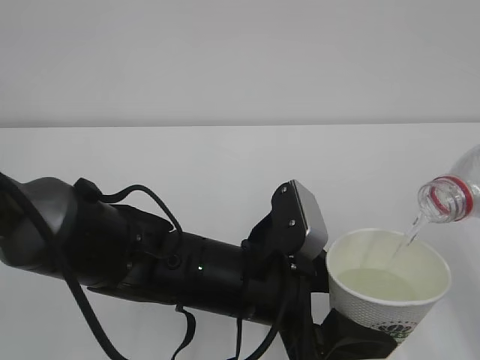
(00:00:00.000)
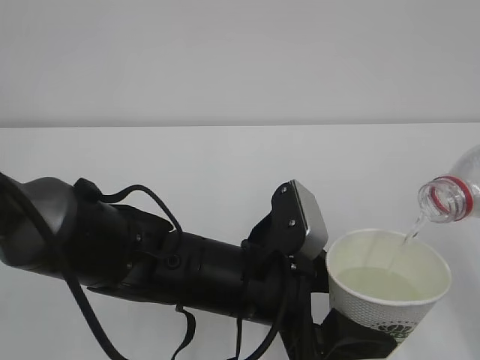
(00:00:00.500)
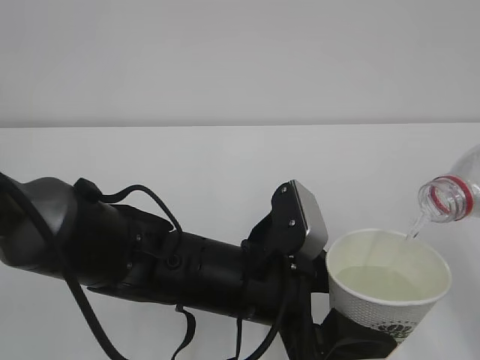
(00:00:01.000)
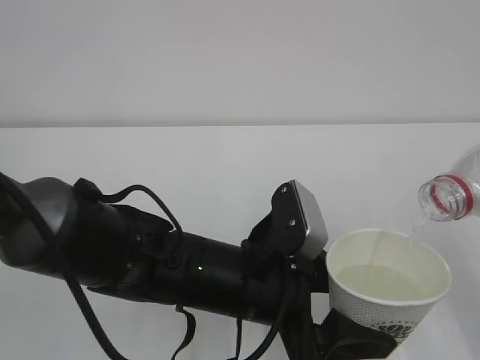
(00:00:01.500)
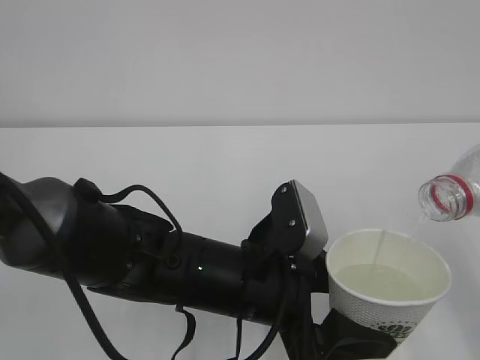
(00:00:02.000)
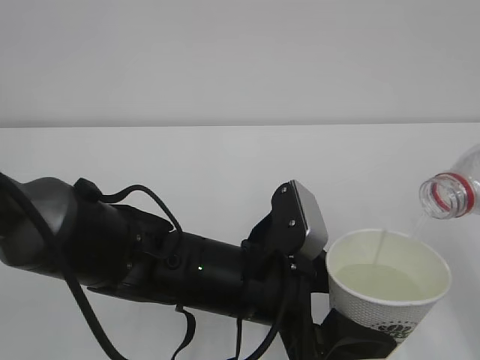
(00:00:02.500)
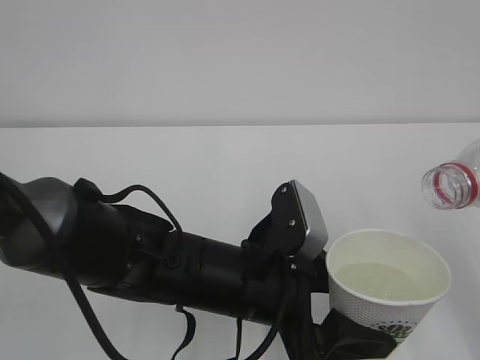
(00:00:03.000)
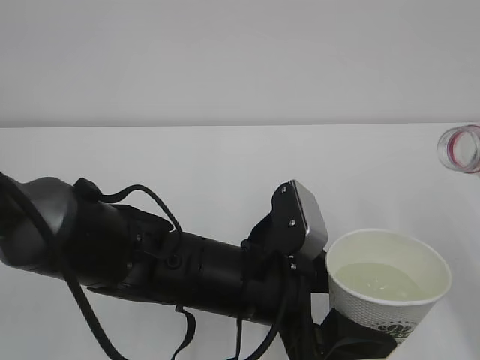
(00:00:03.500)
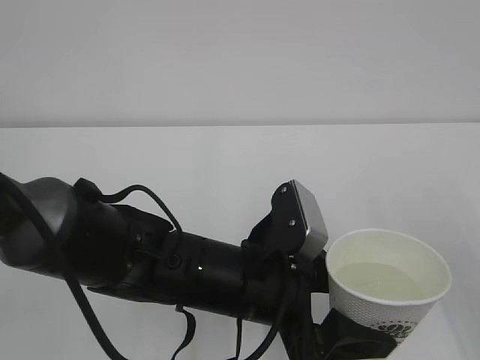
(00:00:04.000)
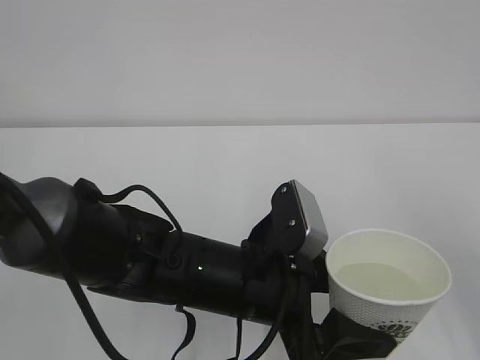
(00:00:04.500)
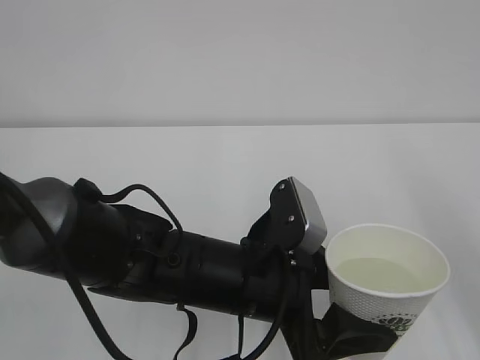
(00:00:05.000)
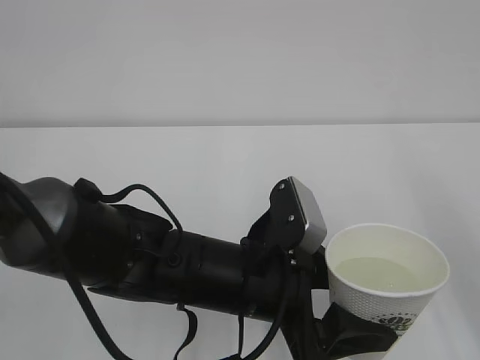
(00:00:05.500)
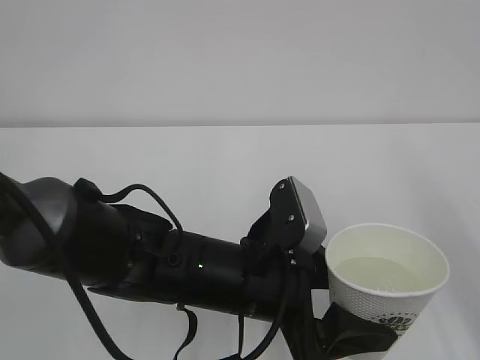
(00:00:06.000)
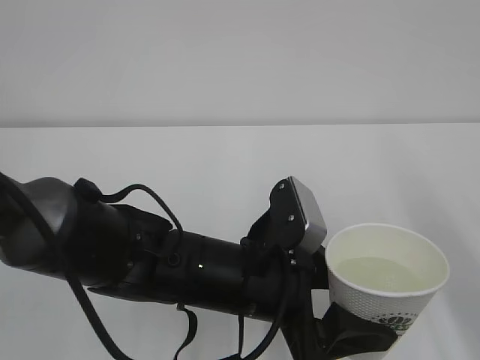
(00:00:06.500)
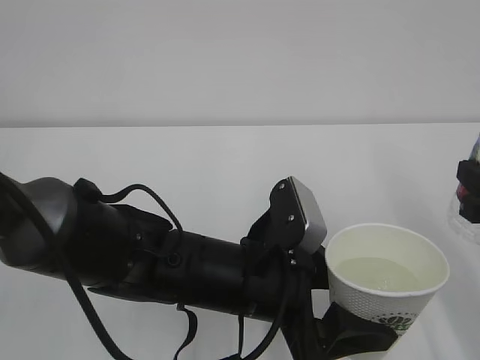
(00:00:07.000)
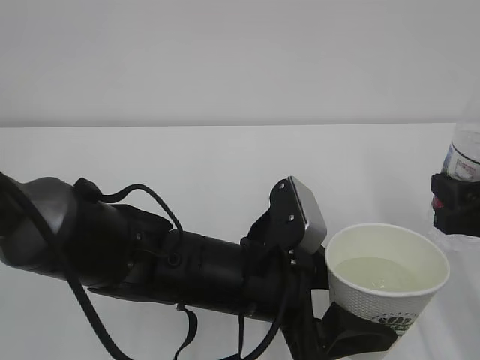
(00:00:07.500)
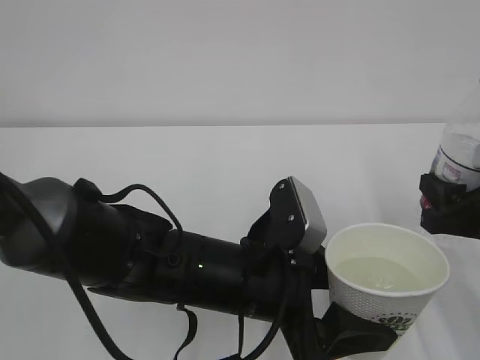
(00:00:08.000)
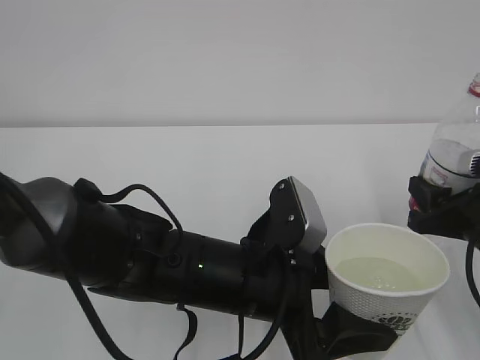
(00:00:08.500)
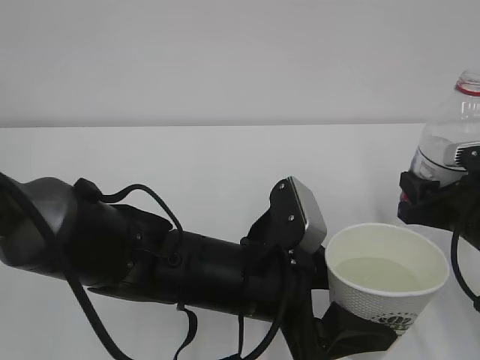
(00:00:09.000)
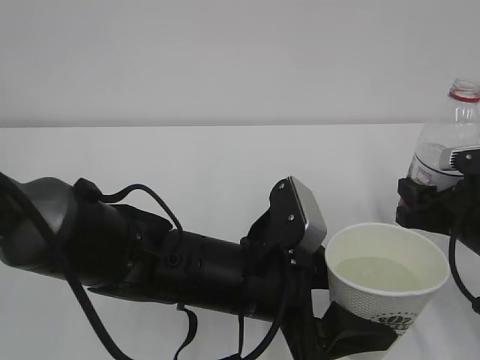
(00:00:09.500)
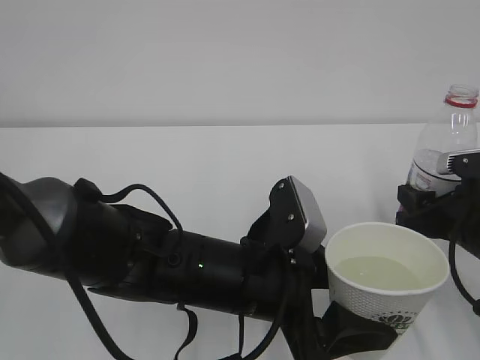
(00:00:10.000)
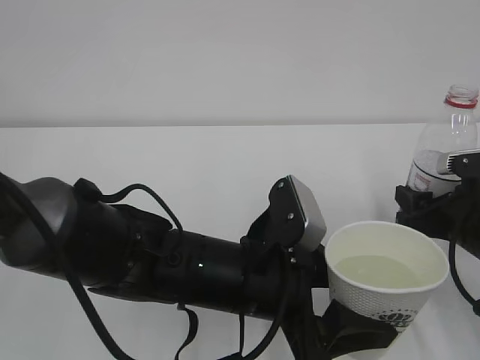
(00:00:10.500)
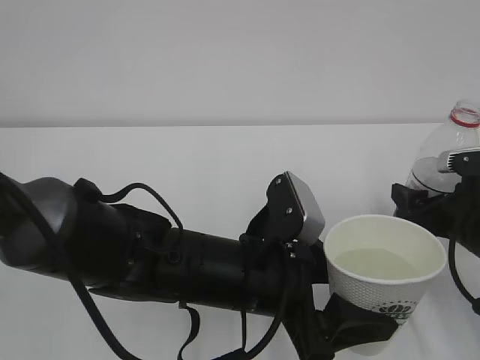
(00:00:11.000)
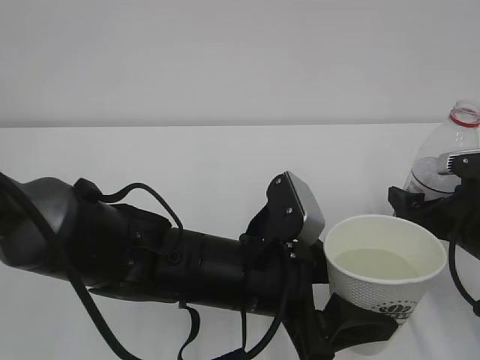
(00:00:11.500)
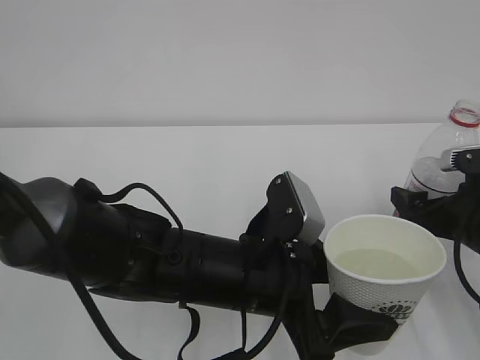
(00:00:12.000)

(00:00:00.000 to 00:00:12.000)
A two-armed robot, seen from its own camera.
00:00:00.000 - 00:00:02.000: The two grippers keep their place.
00:00:06.000 - 00:00:08.000: The right gripper heads downward and forward, covering approximately 10 cm.
00:00:08.000 - 00:00:10.000: The right gripper moves approximately 5 cm.
00:00:10.000 - 00:00:12.000: The right gripper opens up.

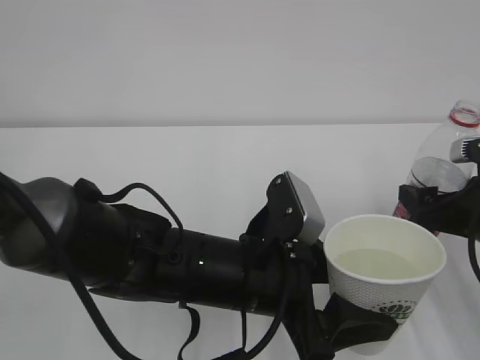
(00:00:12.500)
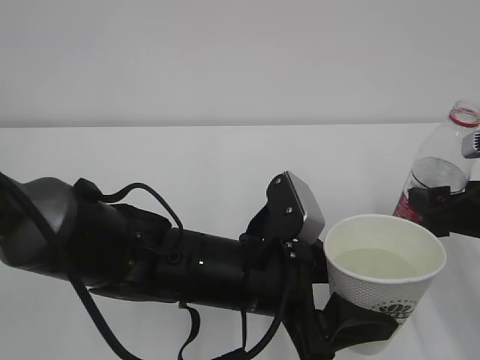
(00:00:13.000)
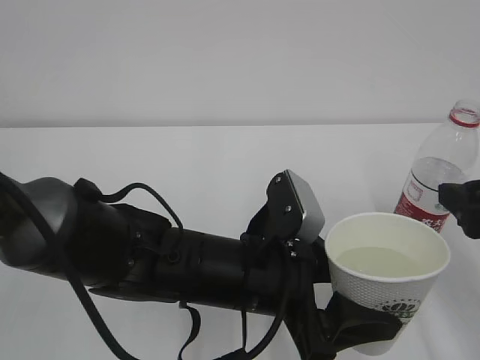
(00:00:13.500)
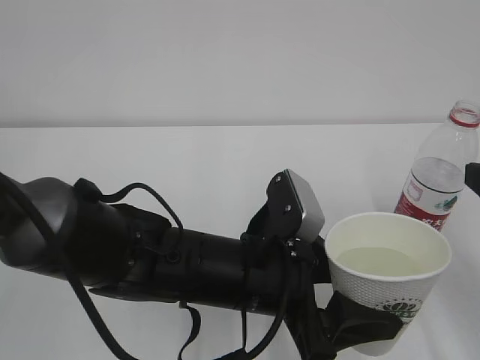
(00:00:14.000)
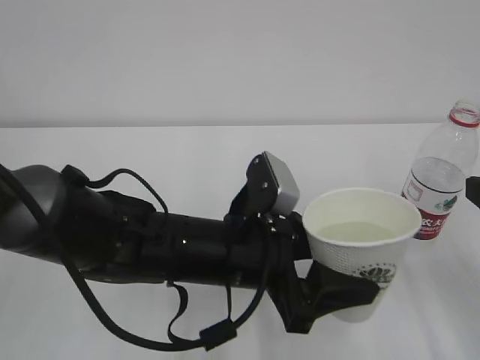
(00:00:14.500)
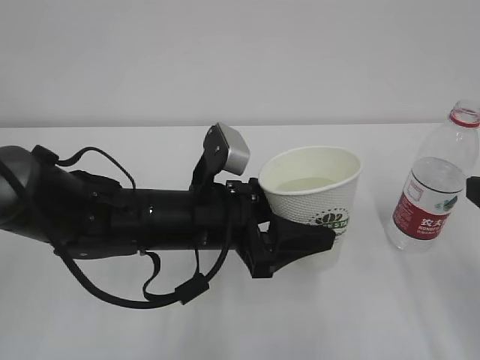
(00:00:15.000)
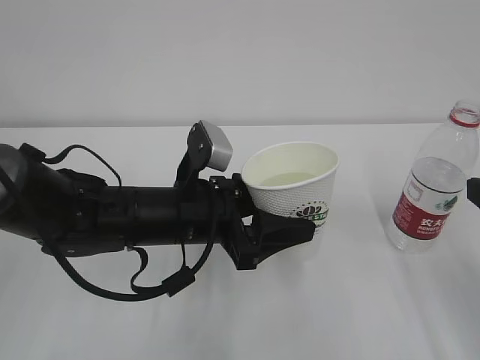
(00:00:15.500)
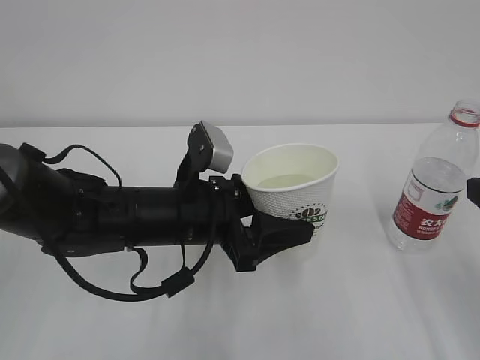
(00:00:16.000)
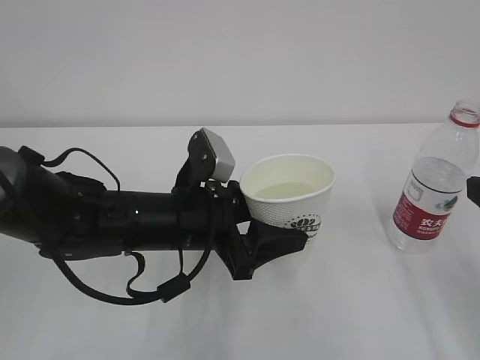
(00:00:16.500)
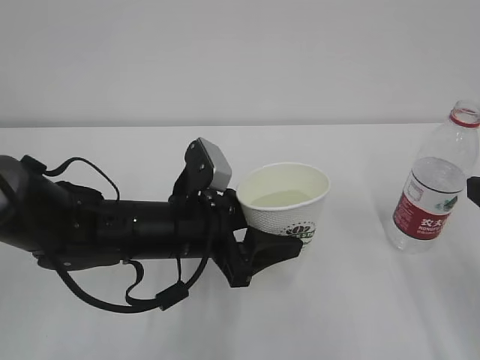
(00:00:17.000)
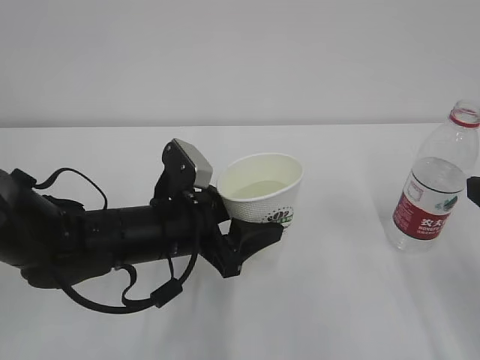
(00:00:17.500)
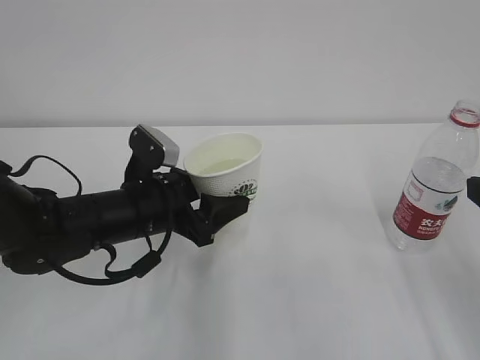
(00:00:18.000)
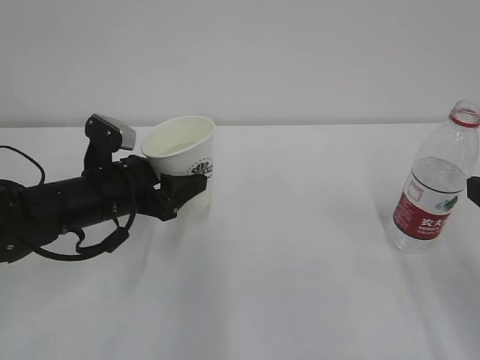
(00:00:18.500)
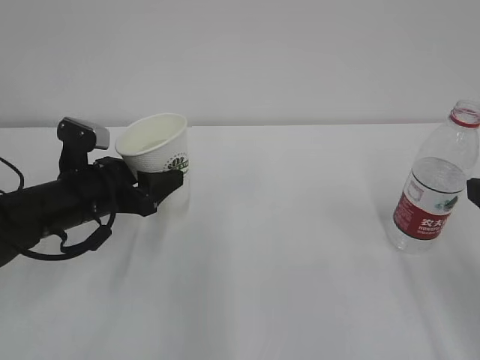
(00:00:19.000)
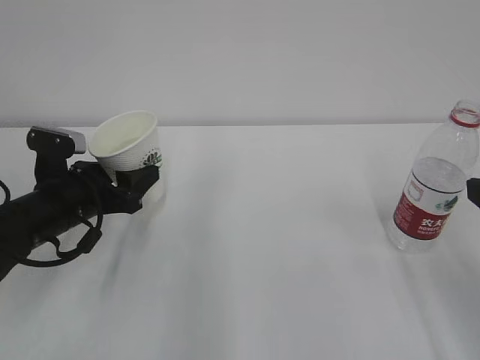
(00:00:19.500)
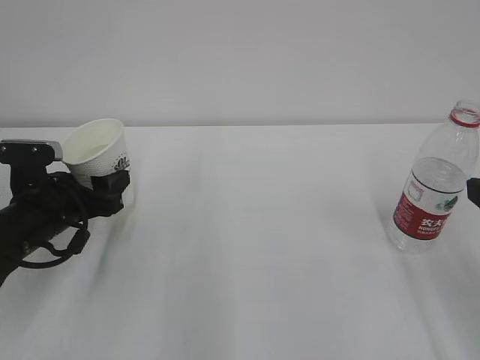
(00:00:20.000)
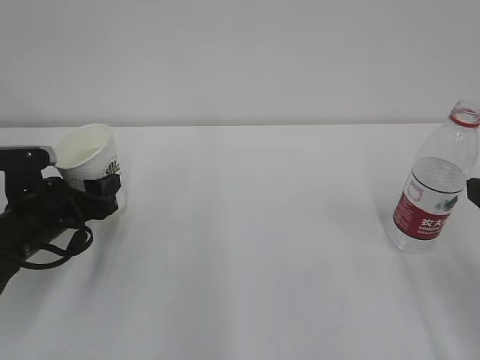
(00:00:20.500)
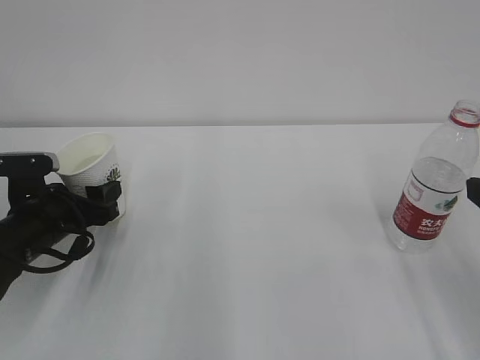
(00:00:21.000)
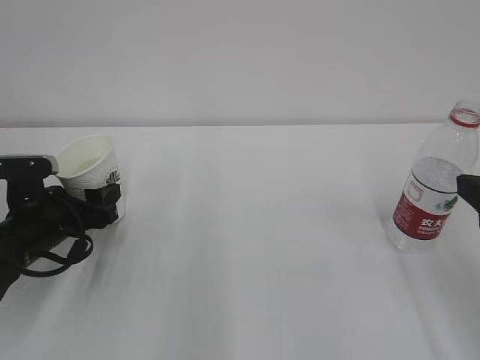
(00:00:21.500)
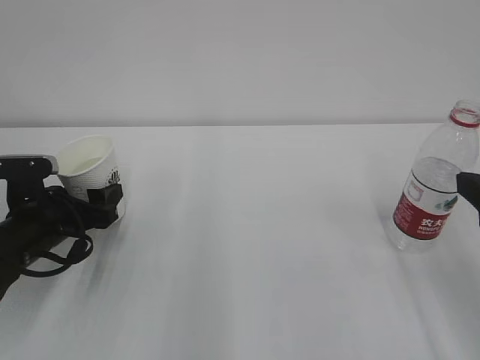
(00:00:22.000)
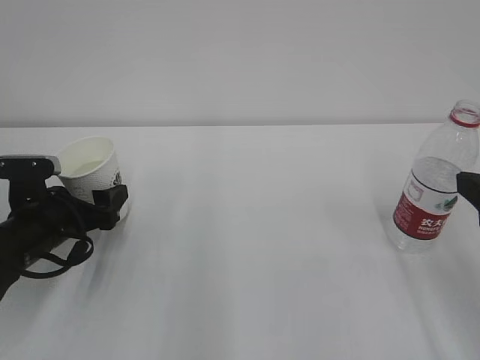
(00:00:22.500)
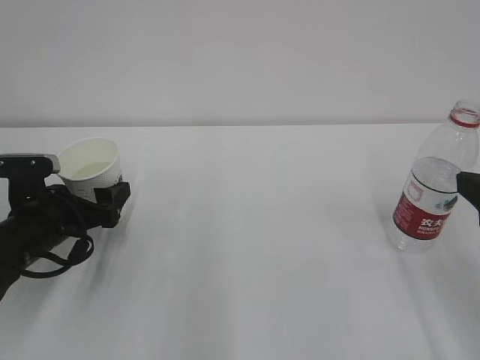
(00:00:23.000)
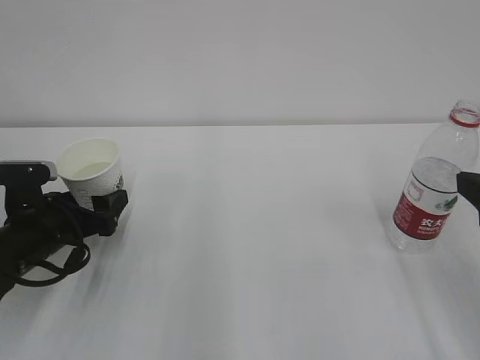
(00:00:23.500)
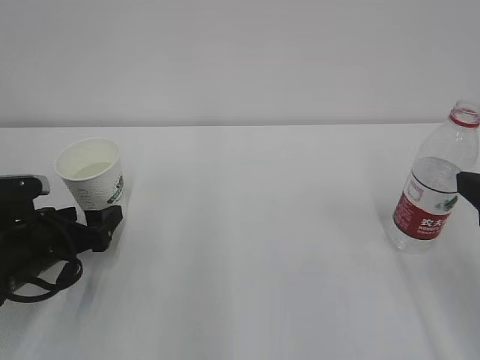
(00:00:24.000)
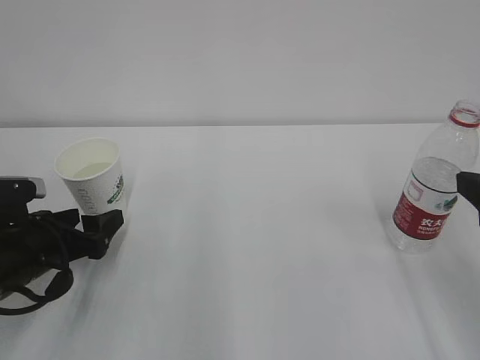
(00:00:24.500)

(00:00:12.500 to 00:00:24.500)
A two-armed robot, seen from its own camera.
00:00:12.500 - 00:00:14.500: The right gripper is displaced upward and backward by about 10 cm.
00:00:14.500 - 00:00:16.500: The left gripper goes about 5 cm to the left.
00:00:16.500 - 00:00:18.500: The left gripper is displaced to the left and forward by approximately 10 cm.
00:00:18.500 - 00:00:20.500: The left gripper shifts approximately 5 cm to the left.
00:00:20.500 - 00:00:22.500: The left gripper opens.
00:00:22.500 - 00:00:24.500: There are only small adjustments of the grippers.

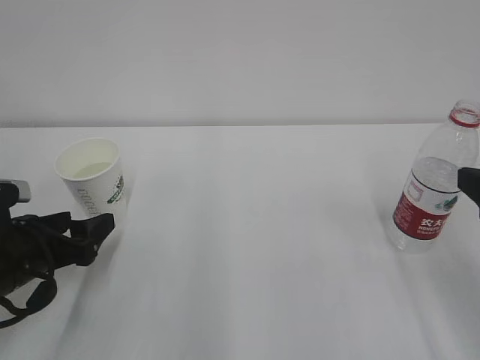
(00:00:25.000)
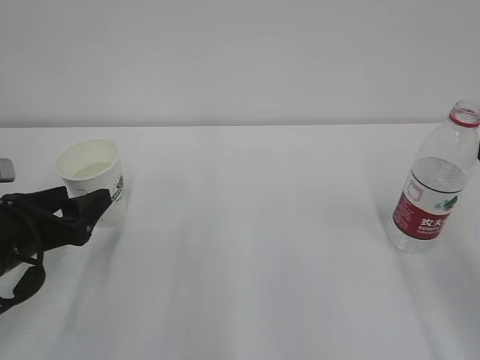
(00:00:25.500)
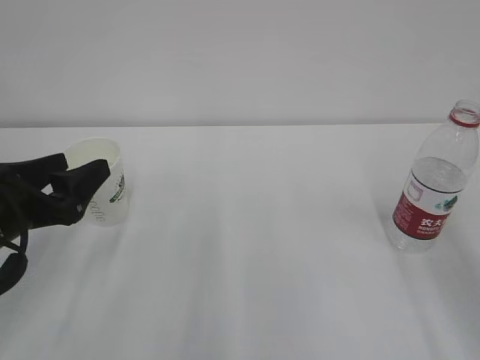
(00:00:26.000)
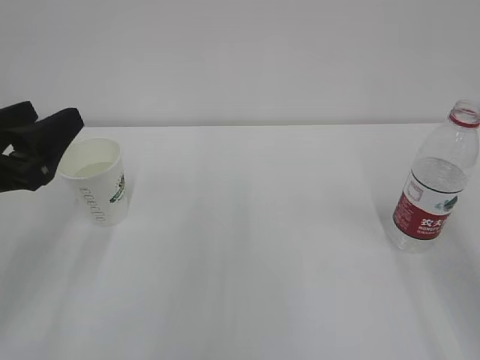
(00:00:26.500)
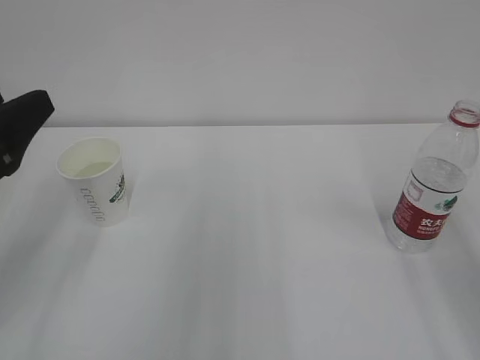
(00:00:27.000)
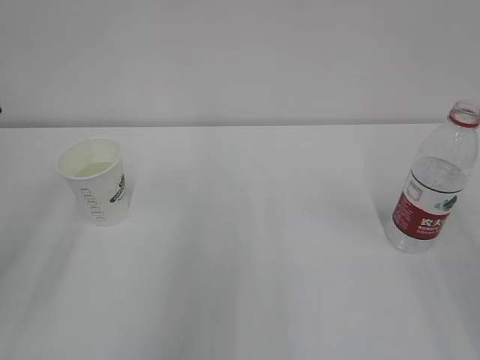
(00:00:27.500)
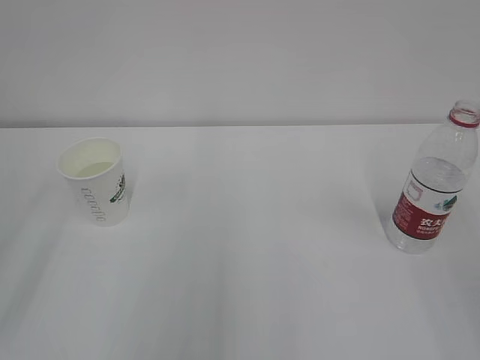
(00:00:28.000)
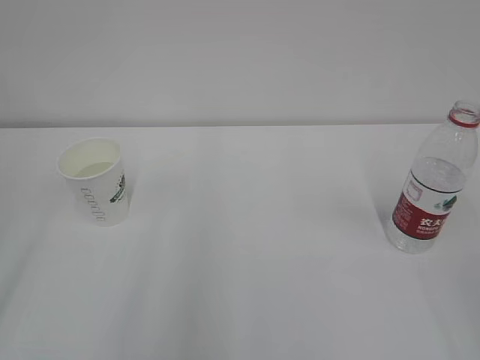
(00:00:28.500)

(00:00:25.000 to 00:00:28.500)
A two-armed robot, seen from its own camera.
00:00:25.000 - 00:00:27.000: The left gripper travels upward by some 15 cm.
00:00:27.000 - 00:00:28.500: The left gripper is displaced backward and to the left by some 10 cm.
